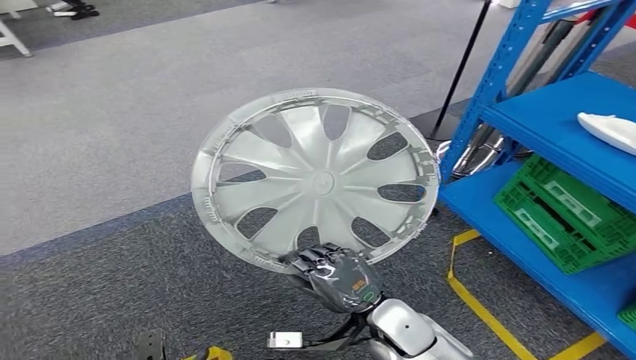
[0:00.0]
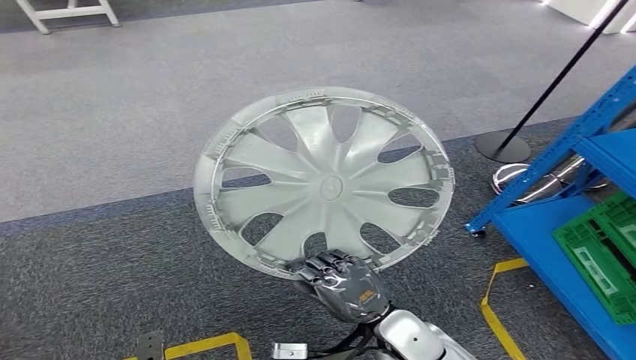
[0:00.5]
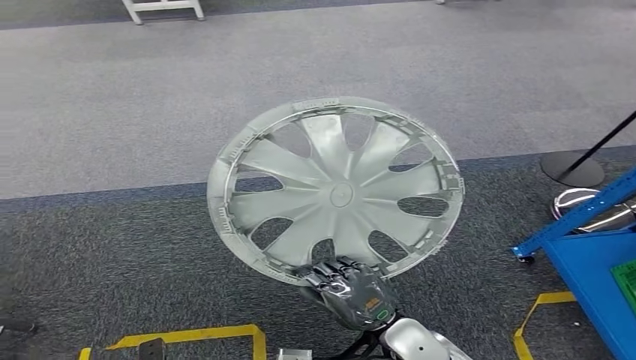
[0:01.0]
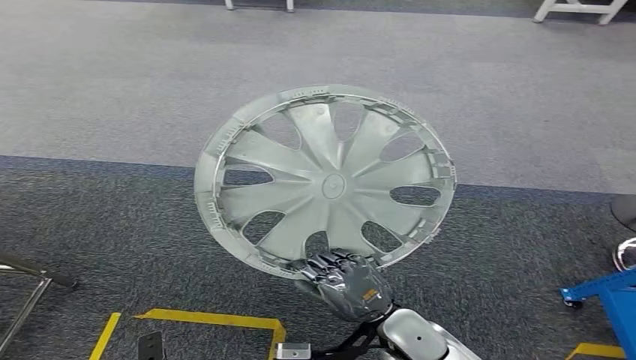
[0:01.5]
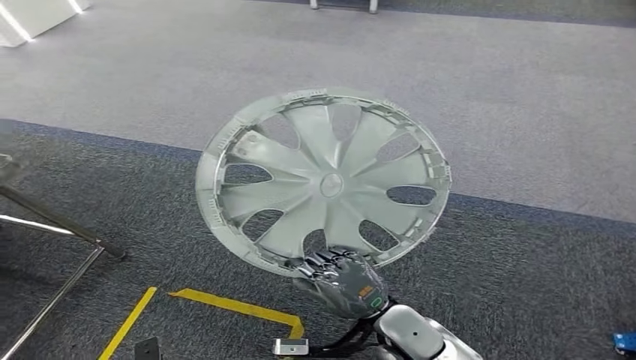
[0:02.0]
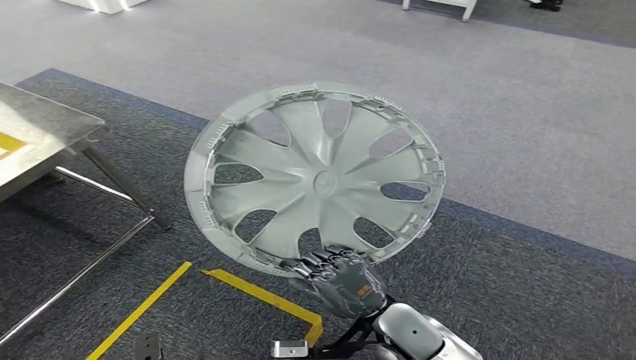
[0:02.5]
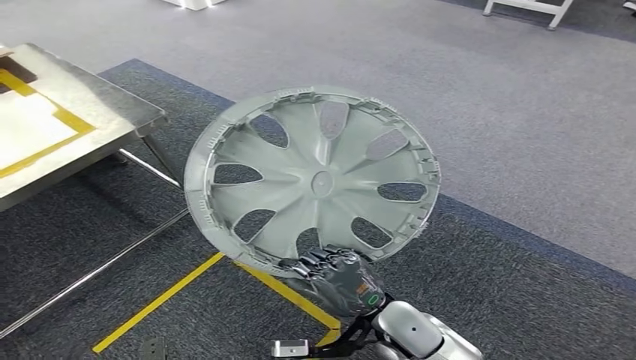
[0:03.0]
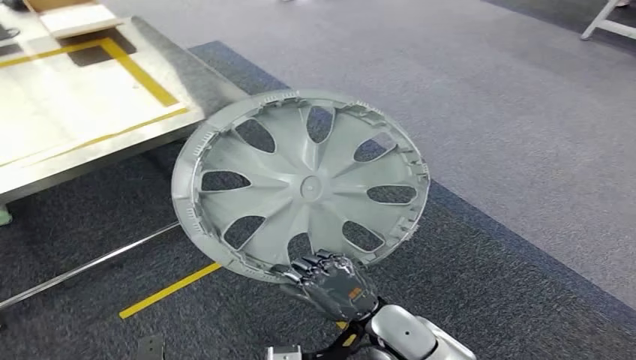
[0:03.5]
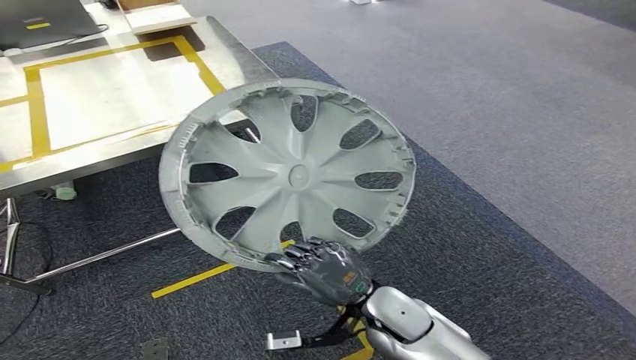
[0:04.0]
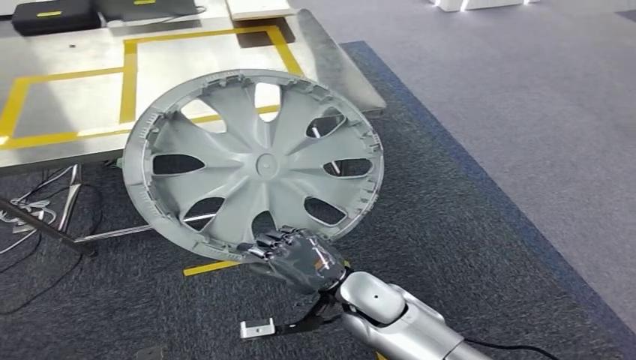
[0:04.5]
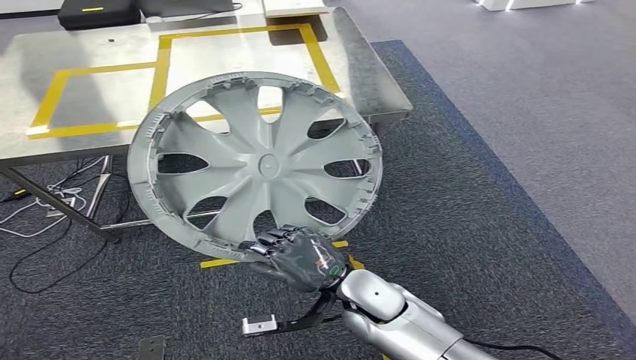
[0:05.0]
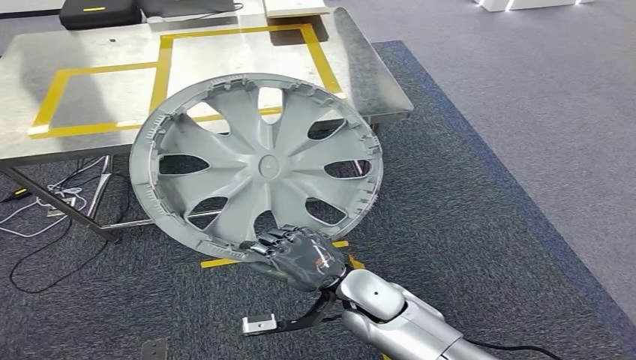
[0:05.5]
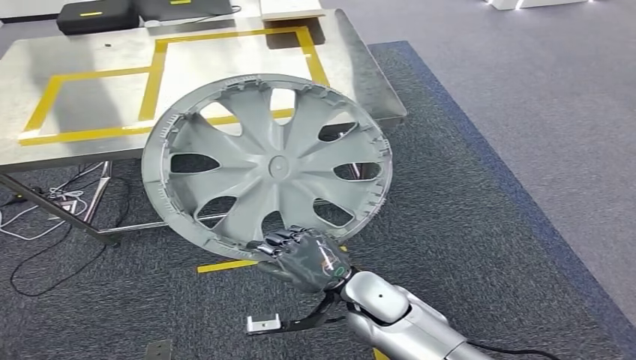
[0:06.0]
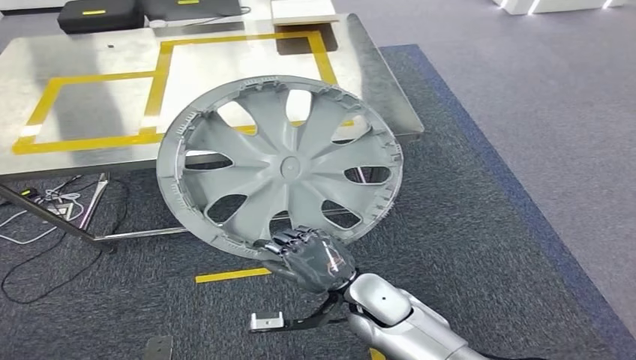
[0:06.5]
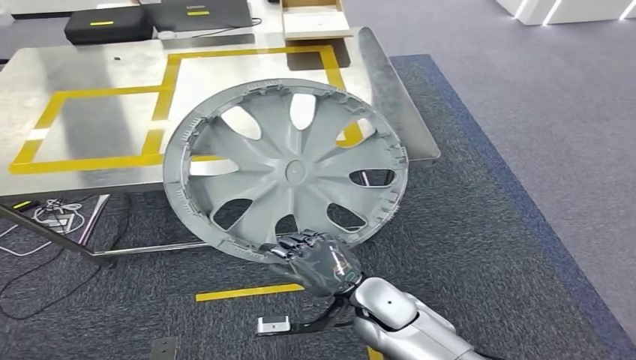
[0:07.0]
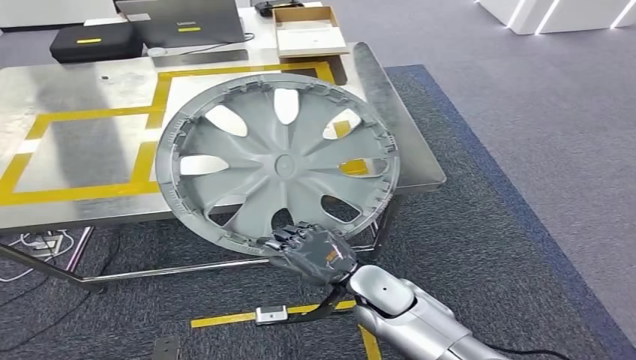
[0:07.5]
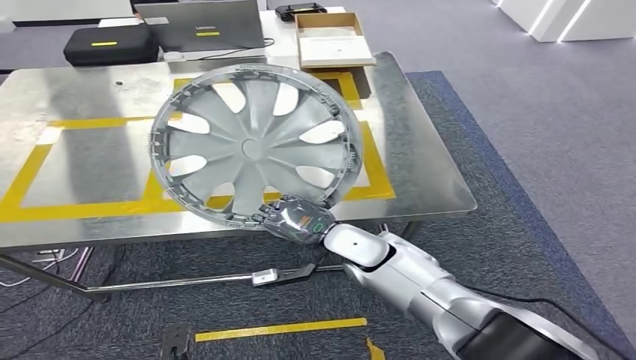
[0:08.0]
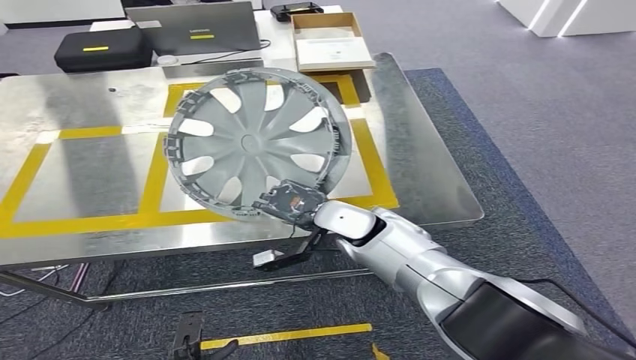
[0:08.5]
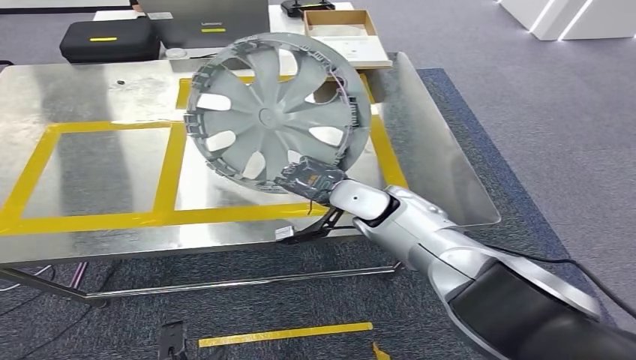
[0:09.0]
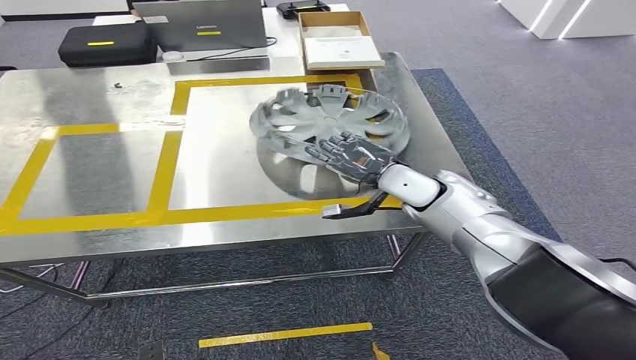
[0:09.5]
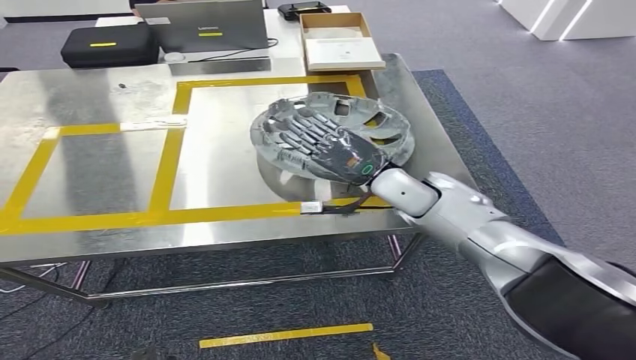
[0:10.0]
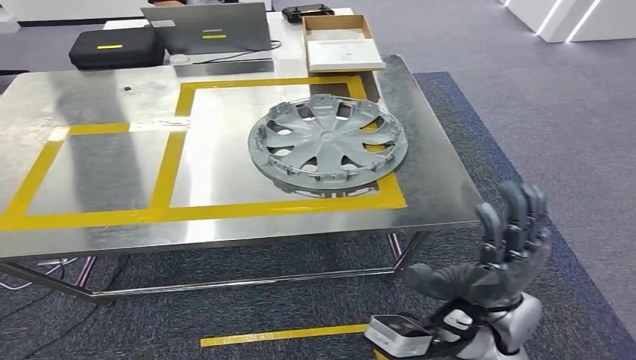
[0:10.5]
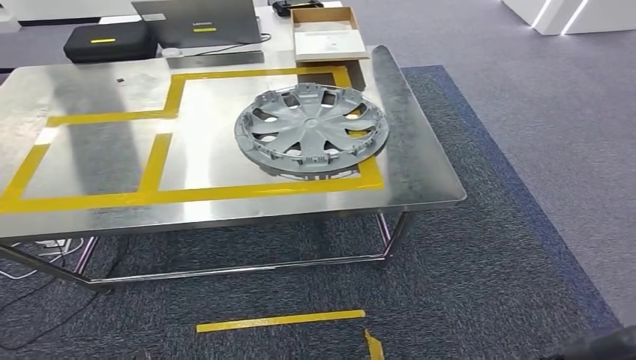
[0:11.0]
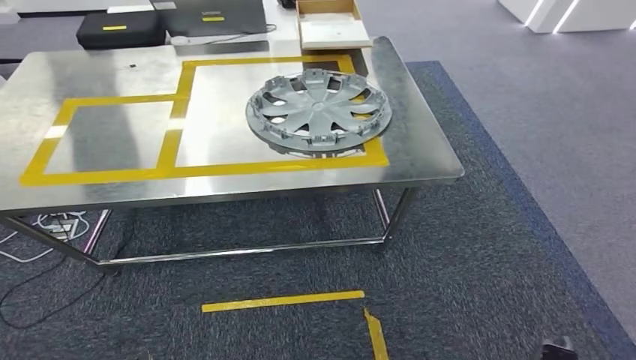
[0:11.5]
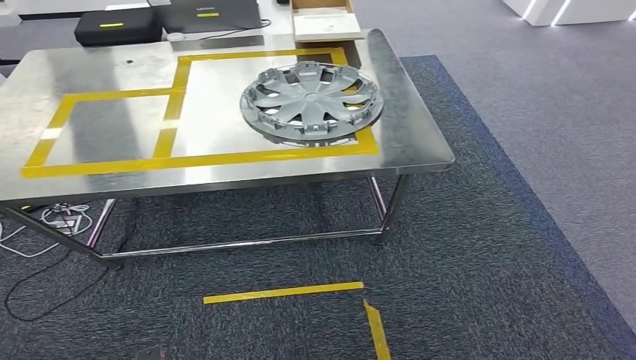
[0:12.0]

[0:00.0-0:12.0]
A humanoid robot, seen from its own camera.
Step, 0:00.0 to 0:05.5: Move the small parts to the workbench.
Step, 0:06.0 to 0:11.0: Insert the small parts into the corresponding holes on the workbench.

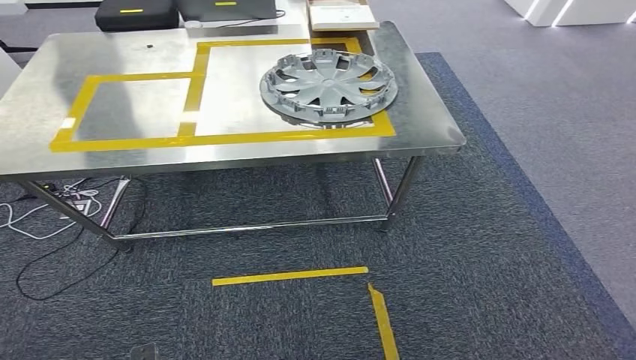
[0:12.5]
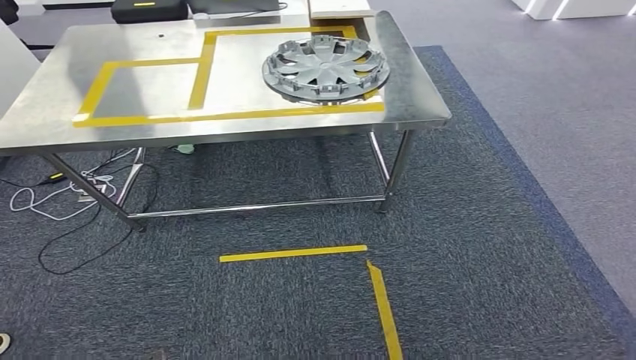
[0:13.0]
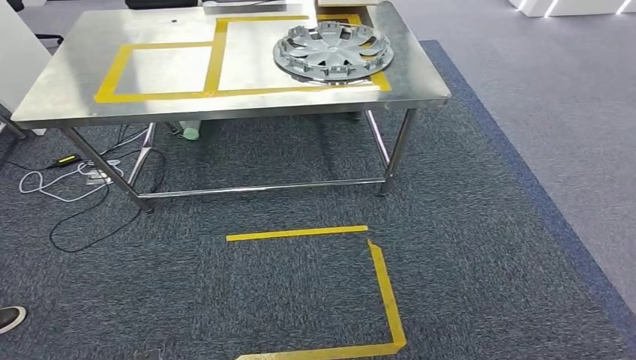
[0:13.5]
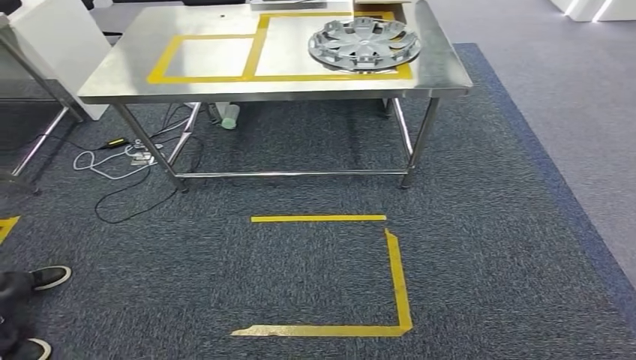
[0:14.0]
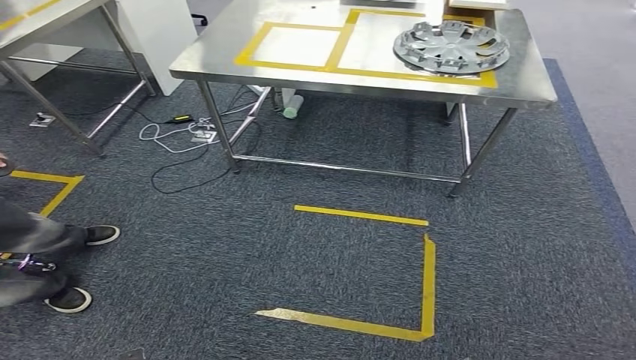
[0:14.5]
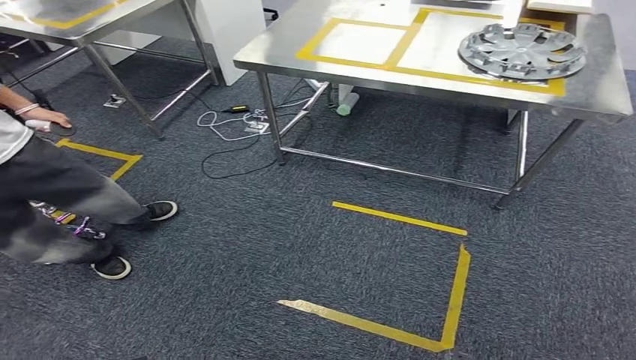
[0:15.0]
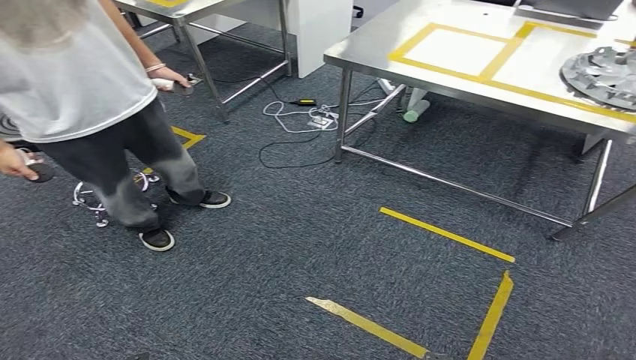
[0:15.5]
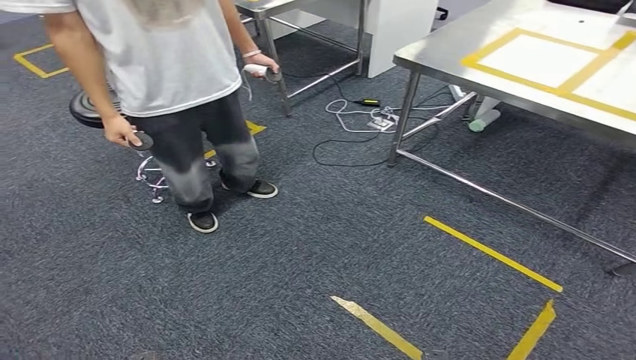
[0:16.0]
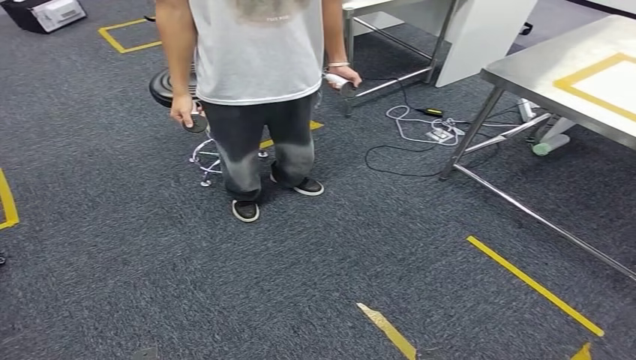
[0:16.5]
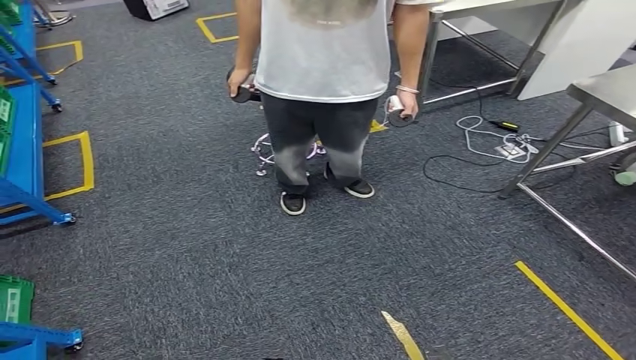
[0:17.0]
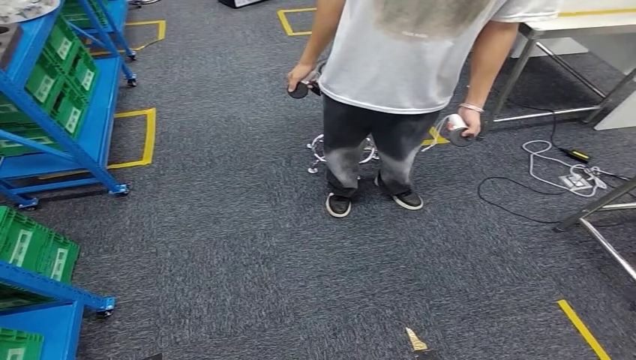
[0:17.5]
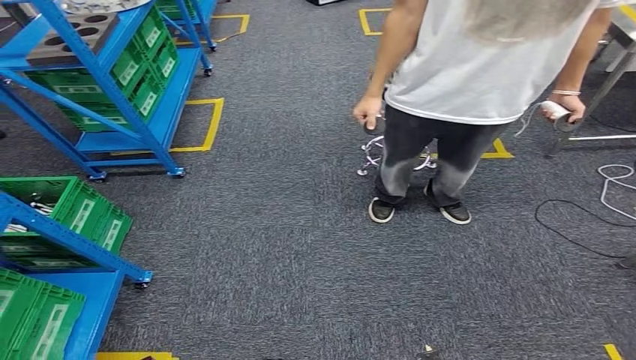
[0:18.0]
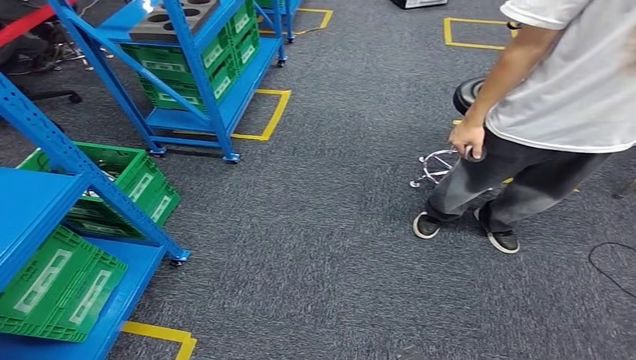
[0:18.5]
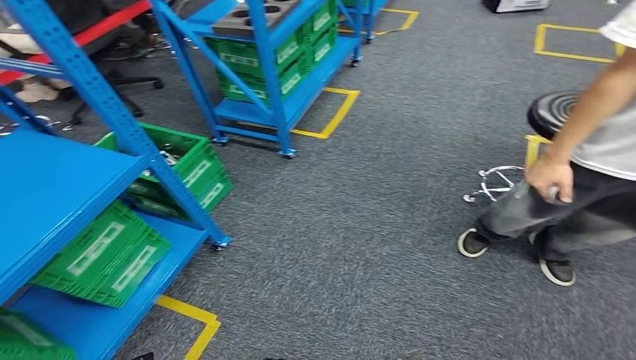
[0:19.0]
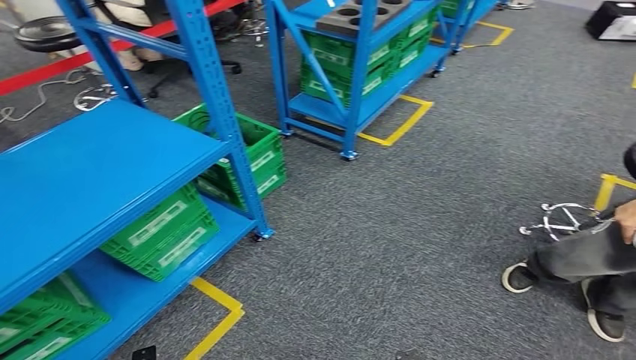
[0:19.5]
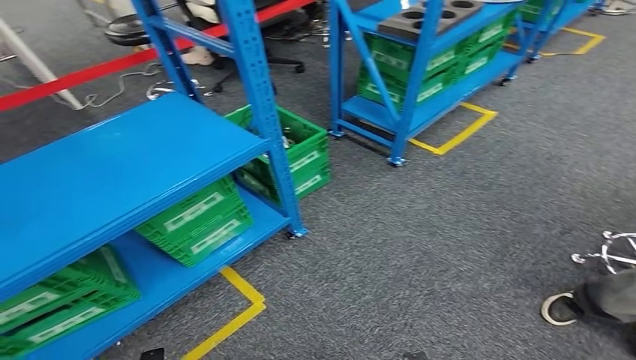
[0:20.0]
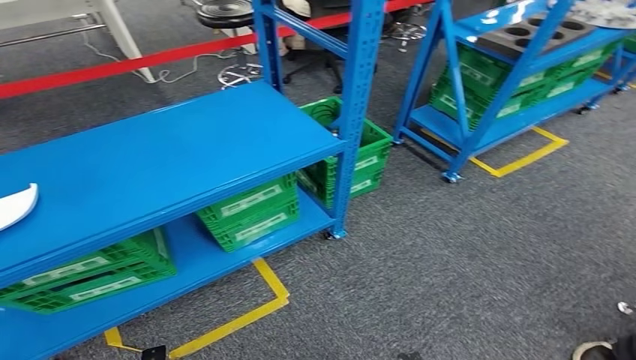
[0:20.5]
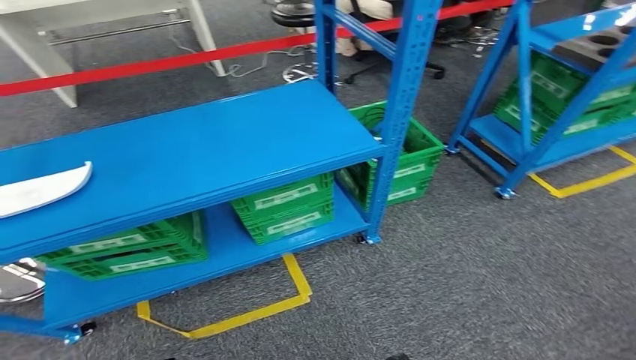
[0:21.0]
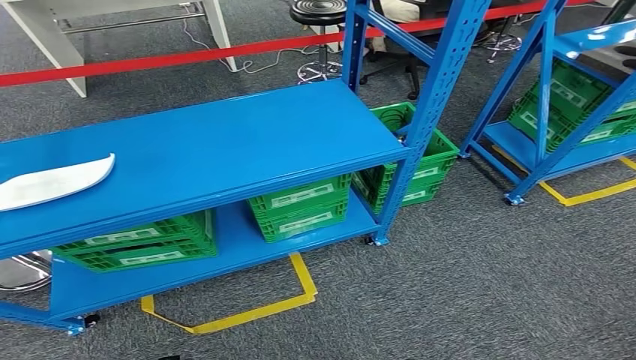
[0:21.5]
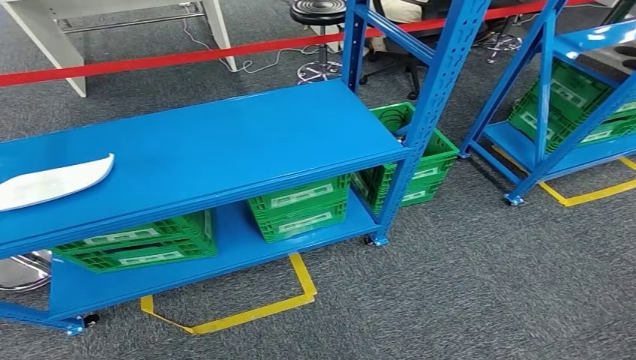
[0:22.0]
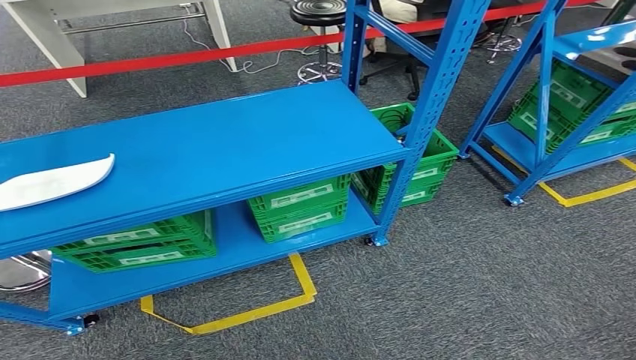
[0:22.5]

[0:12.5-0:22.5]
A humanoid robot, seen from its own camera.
Step, 0:12.5 to 0:22.5: Move to the initial position of the workbench.
